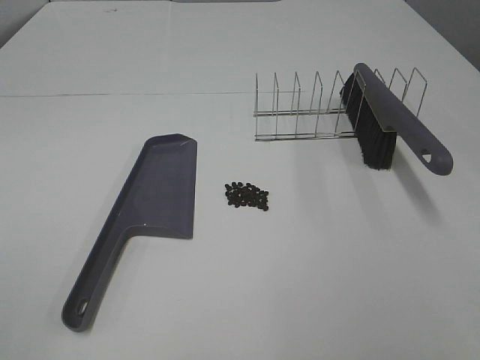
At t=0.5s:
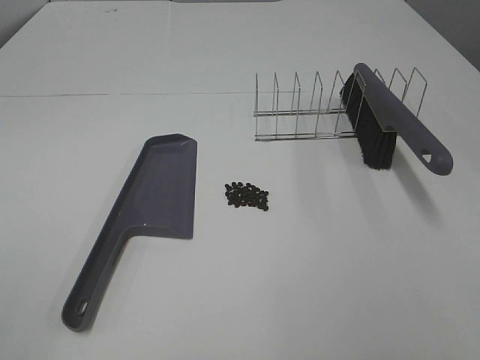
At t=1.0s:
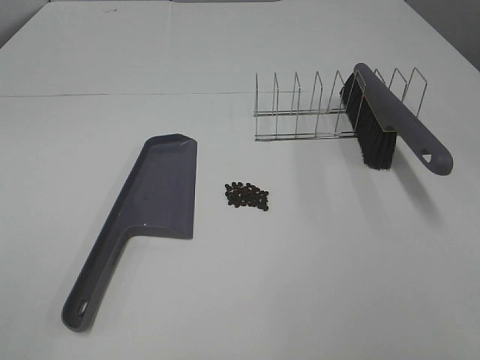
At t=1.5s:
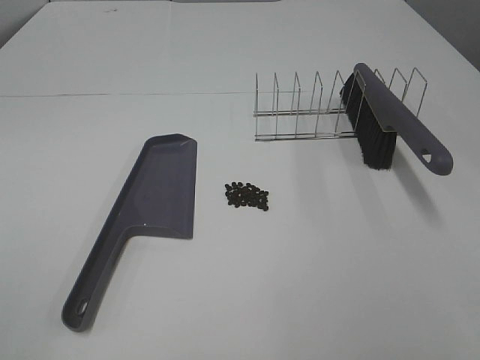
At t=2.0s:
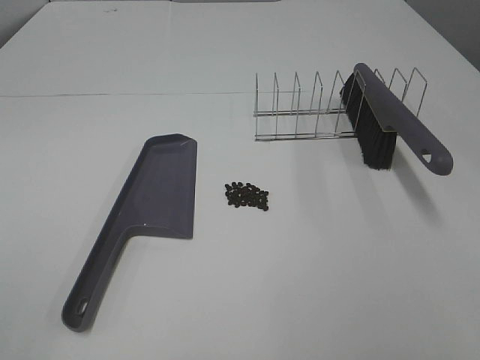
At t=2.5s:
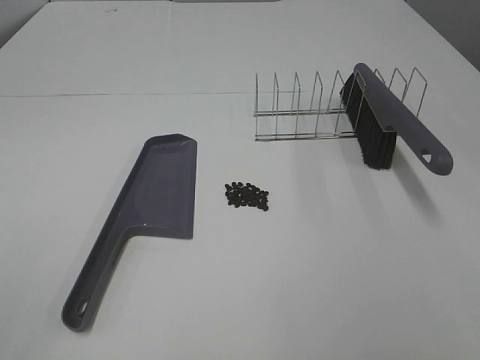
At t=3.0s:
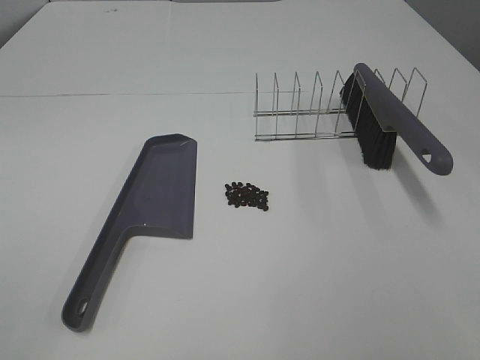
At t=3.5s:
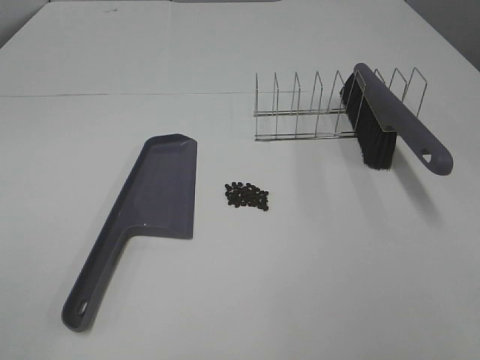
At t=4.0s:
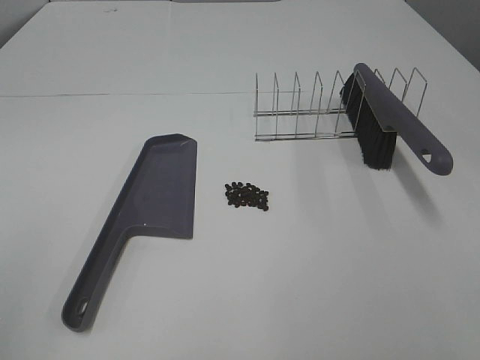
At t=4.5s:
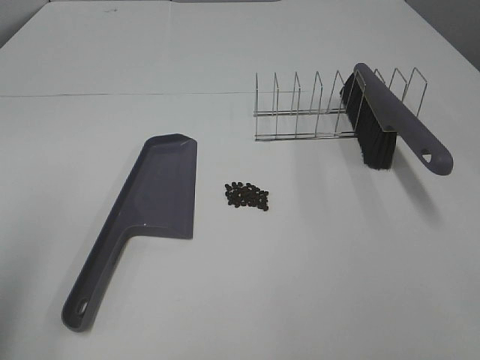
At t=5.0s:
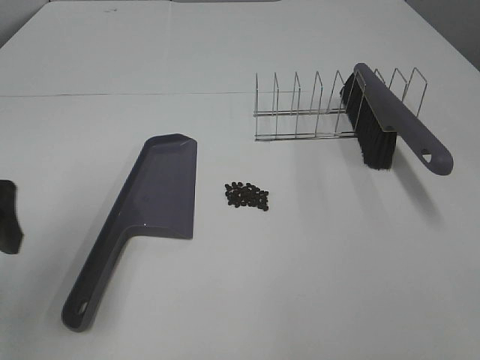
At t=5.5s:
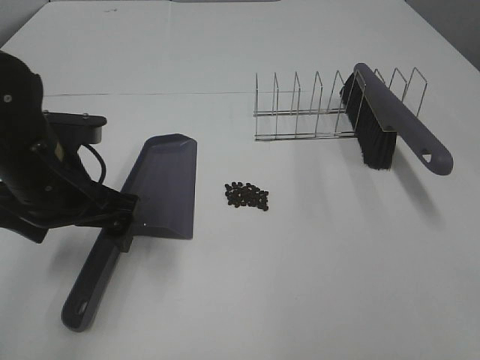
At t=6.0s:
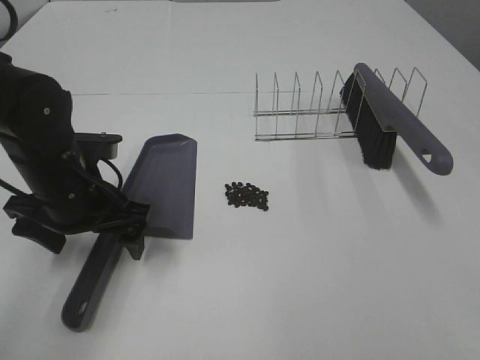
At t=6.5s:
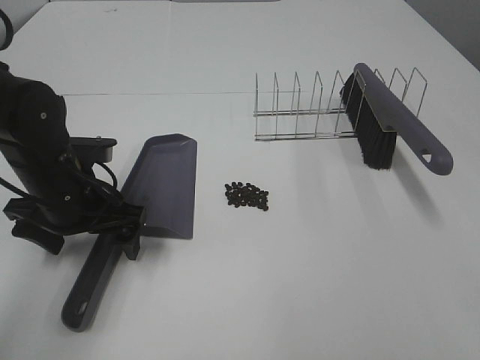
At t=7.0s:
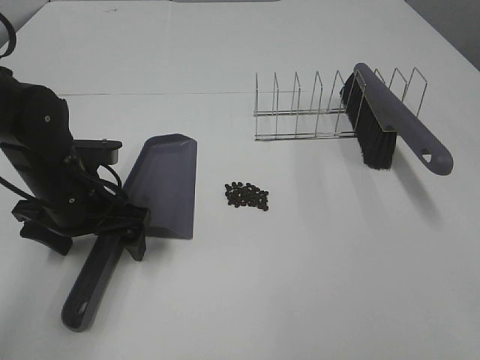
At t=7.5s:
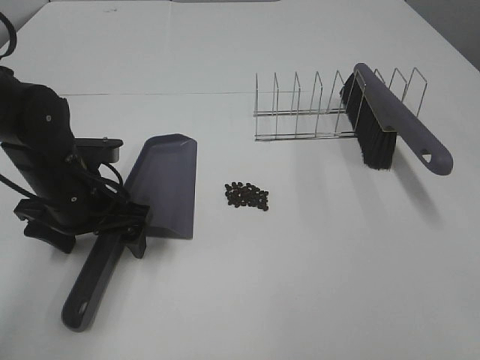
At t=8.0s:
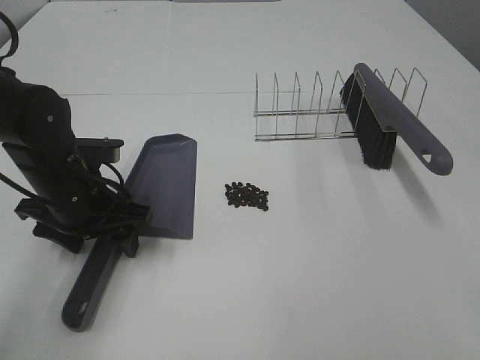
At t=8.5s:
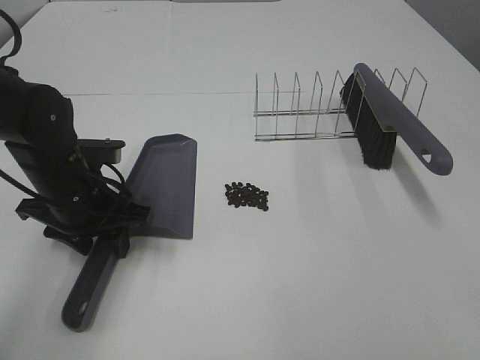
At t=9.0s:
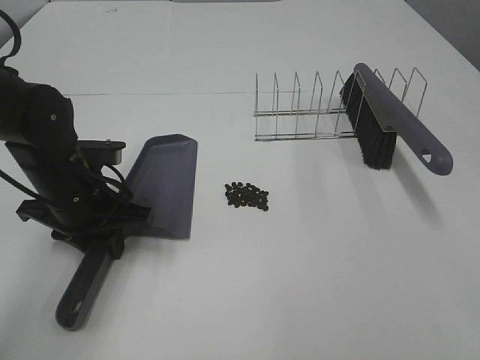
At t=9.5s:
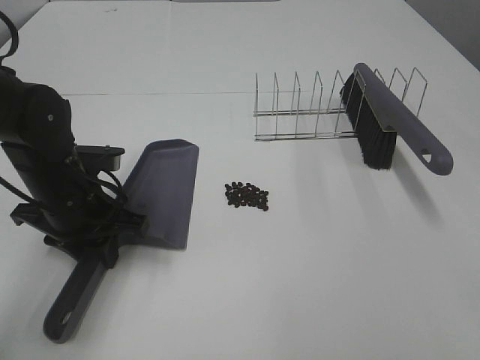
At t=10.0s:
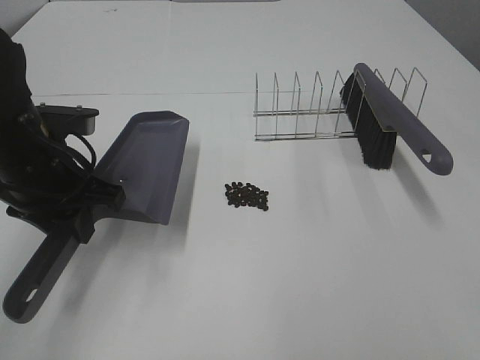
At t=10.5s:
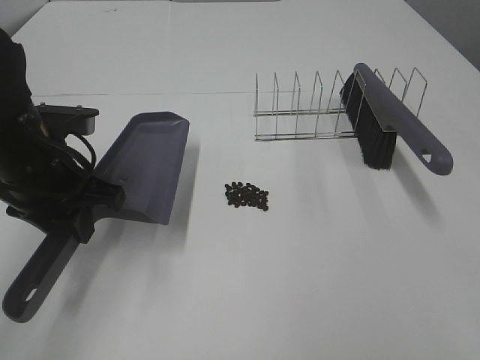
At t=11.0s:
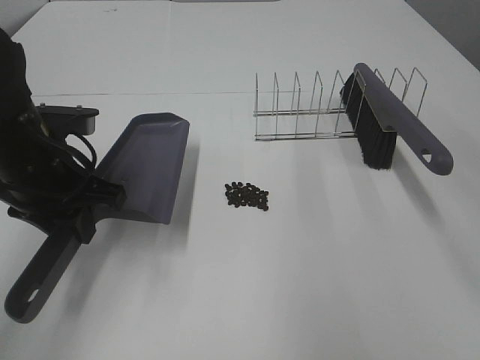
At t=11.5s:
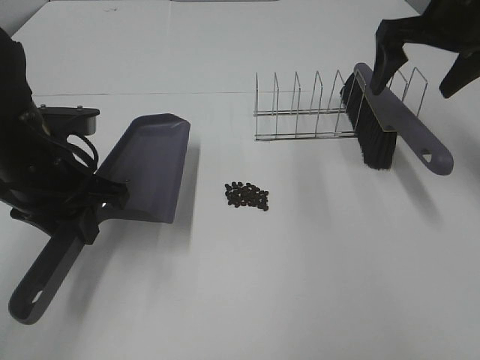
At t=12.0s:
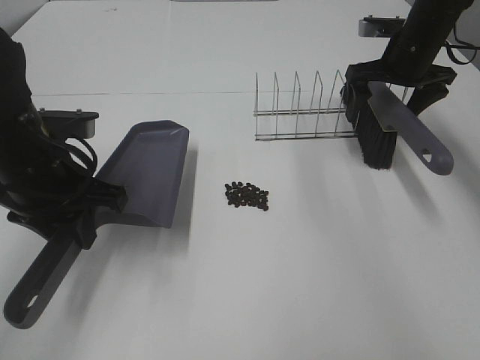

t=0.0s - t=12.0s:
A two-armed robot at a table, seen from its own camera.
Task of the whole recording: Sweep Coffee Bean.
Step, t=0.0s - t=8.5s: Left hand: grab the dustpan.
t=0.0s - t=2.0s: Neither gripper changes place.
t=4.0s - t=6.0s: The left gripper travels forward, downward and to the right by some 35 cm.
t=6.0s - t=8.0s: The left gripper closes its fingers.
t=8.0s - t=10.0s: The left gripper heads upward, covering approximately 5 cm, and closes up.
t=10.0s - t=12.0s: The right gripper travels forward by roughly 50 cm.

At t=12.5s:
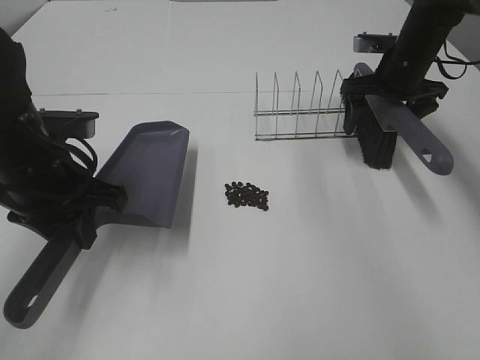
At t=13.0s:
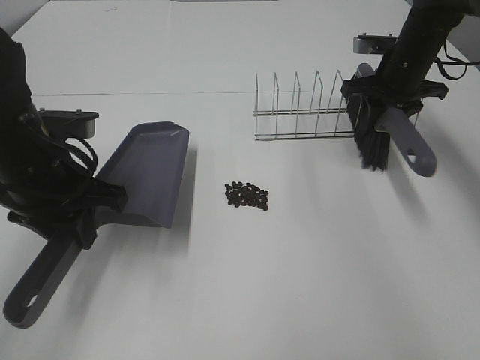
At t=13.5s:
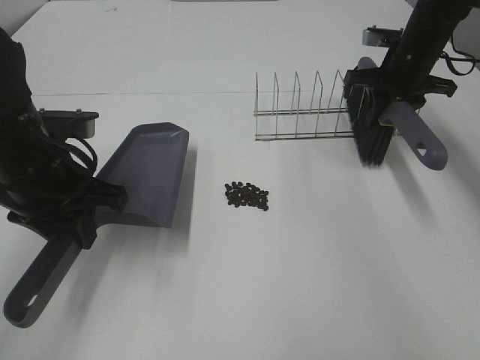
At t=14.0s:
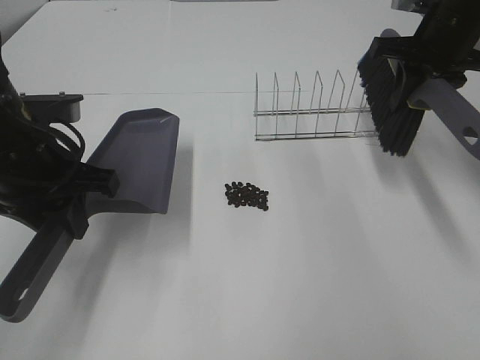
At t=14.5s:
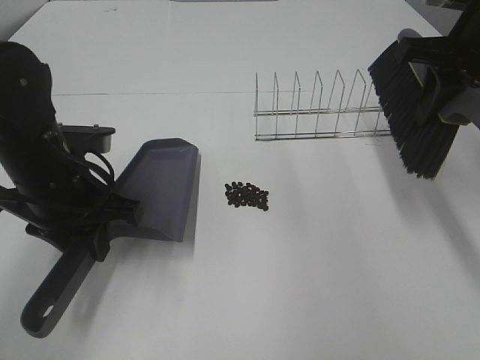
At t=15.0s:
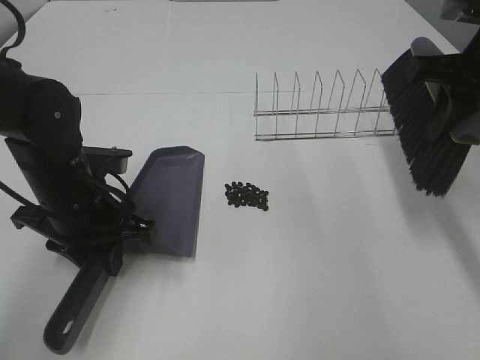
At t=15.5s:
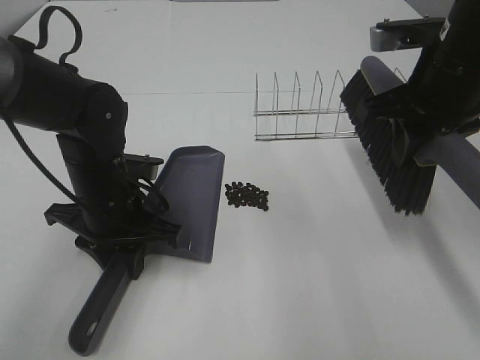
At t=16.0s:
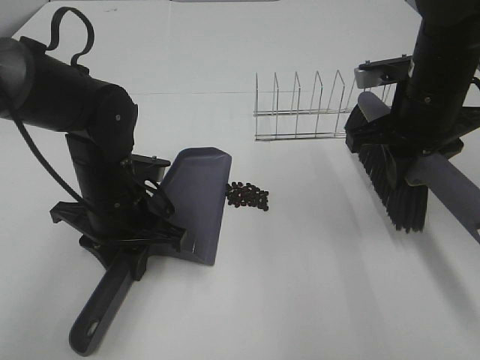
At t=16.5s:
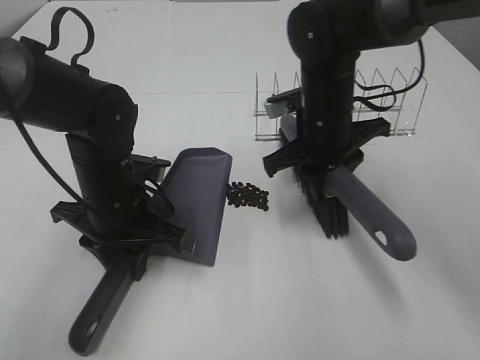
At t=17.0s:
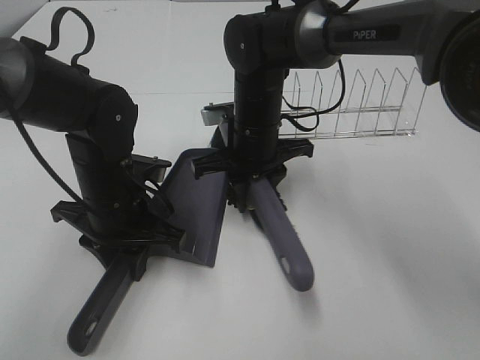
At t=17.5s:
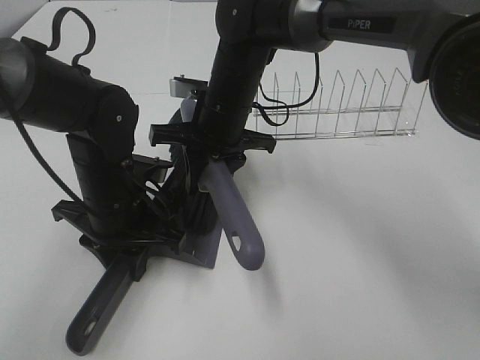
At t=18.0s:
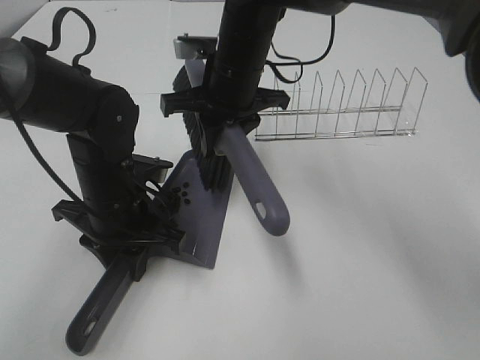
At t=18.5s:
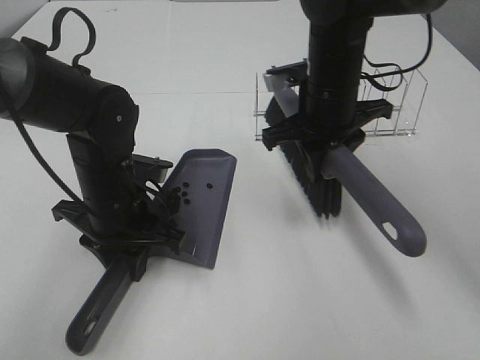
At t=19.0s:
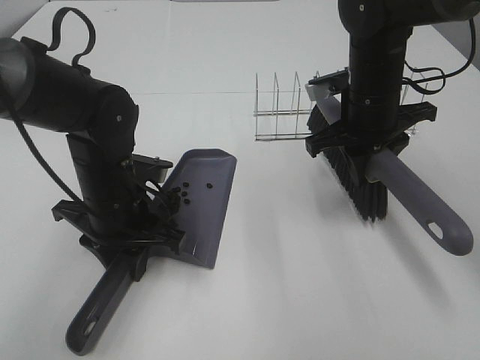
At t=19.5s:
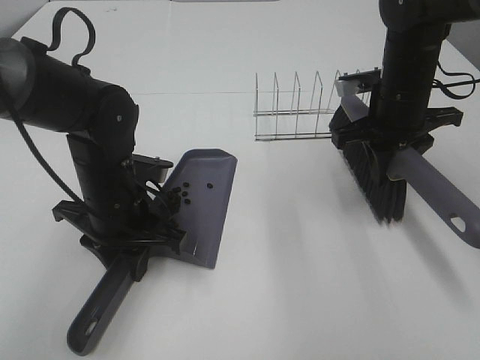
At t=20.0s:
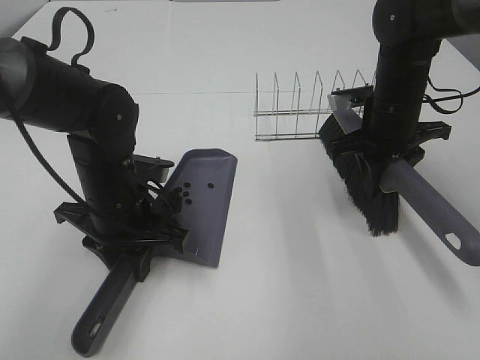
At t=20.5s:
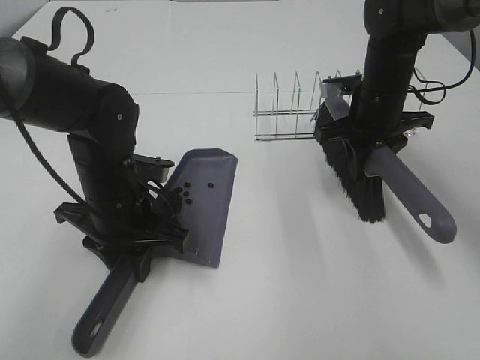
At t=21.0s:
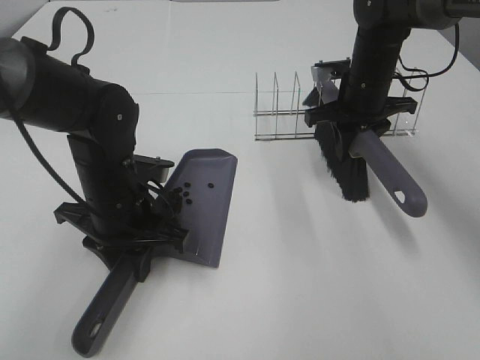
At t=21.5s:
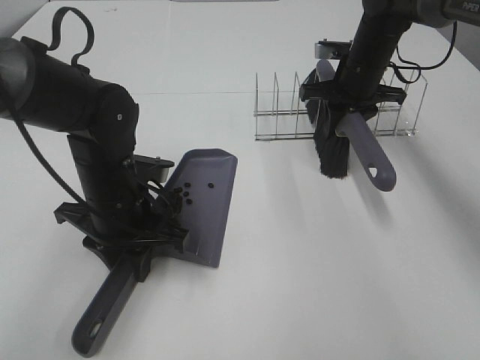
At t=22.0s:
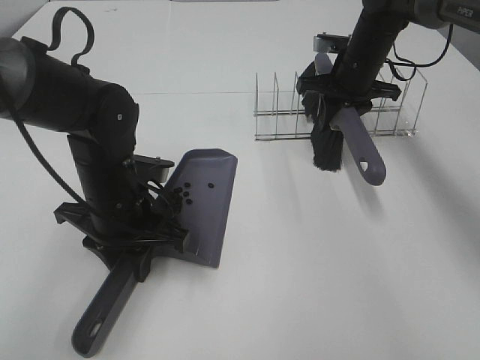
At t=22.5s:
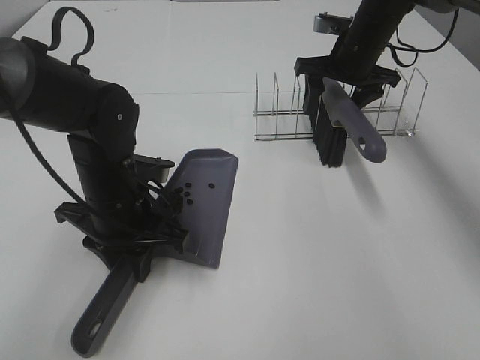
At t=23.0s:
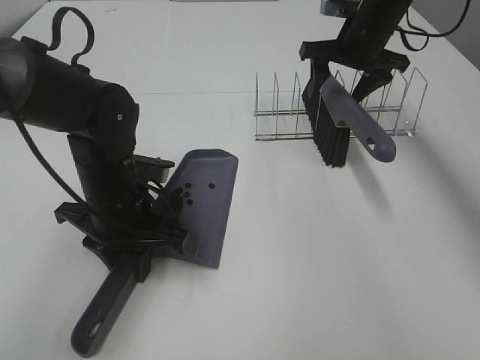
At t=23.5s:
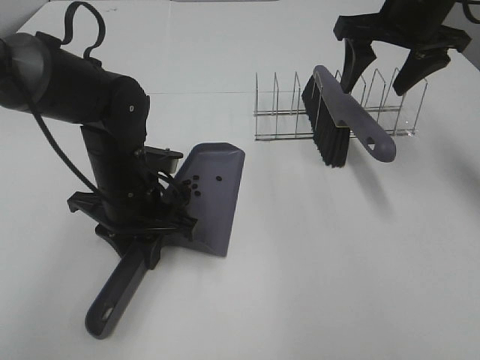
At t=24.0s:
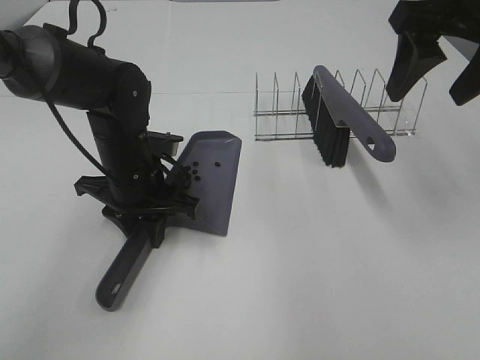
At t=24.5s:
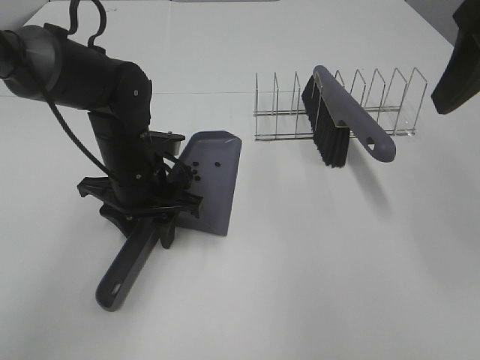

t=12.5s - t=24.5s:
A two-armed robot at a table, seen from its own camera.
Task of the whole recording: Sweep Coffee Bean.
Step, t=12.5s - t=16.0s: Left hand: move the dustpan to the left side of the coffee beans.
Step, t=13.5s - t=17.5s: Right hand:sweep the coffee beans into the dustpan.
Step, t=18.0s - t=22.5s: Right hand:place the broom on the rack.
t=12.5s - t=14.5s: The right gripper heads backward and upward, covering roughly 20 cm, and closes.
t=14.5s - t=16.5s: The left gripper shifts approximately 5 cm downward. Meanwhile the right gripper goes approximately 20 cm to the left and downward.
t=16.5s - t=18.5s: The right gripper reaches some 10 cm to the left, then returns.
t=18.5s - t=20.5s: The right gripper goes about 10 cm to the right.
t=20.5s - t=22.5s: The right gripper heads forward, covering some 10 cm, and opens.
t=22.5s - t=24.5s: The right gripper shifts approximately 30 cm backward and upward.

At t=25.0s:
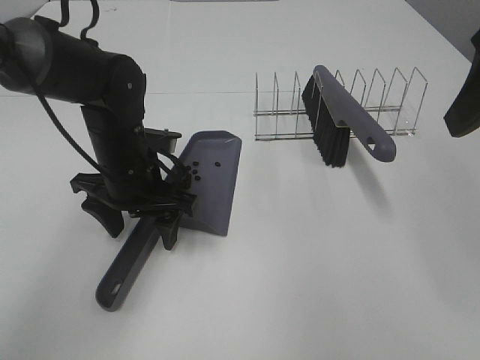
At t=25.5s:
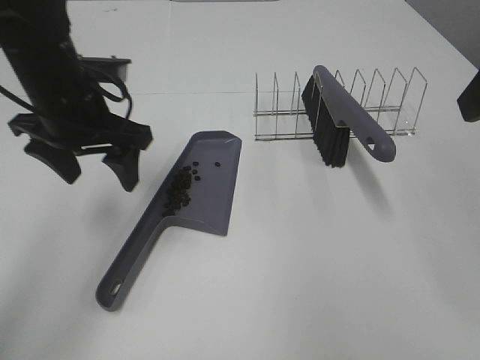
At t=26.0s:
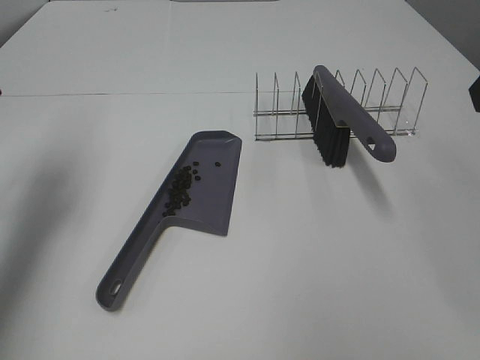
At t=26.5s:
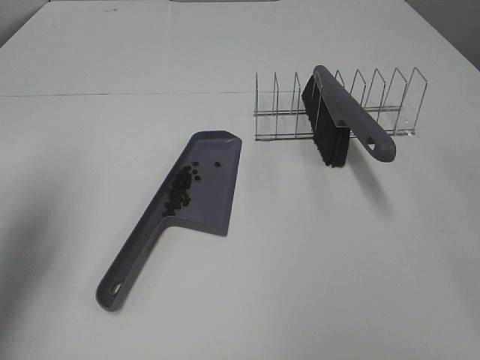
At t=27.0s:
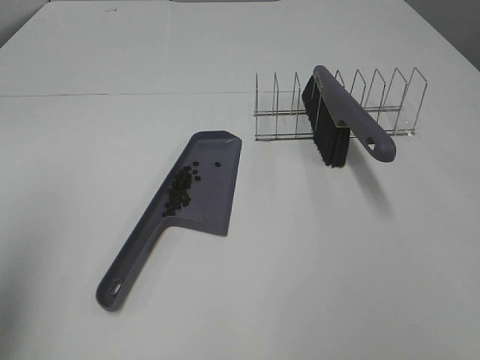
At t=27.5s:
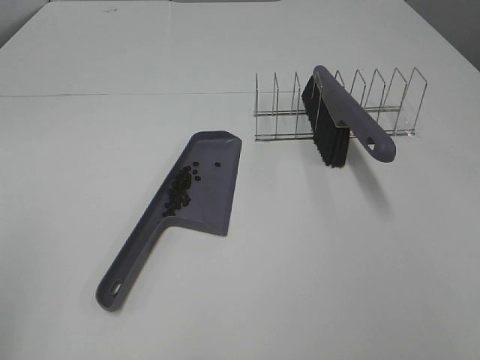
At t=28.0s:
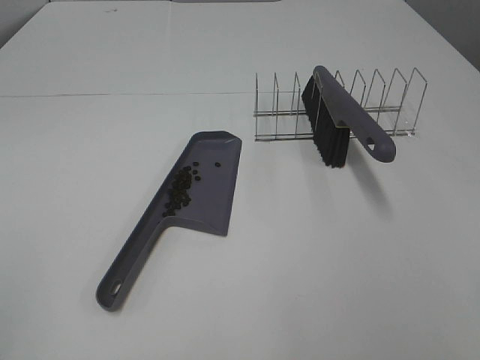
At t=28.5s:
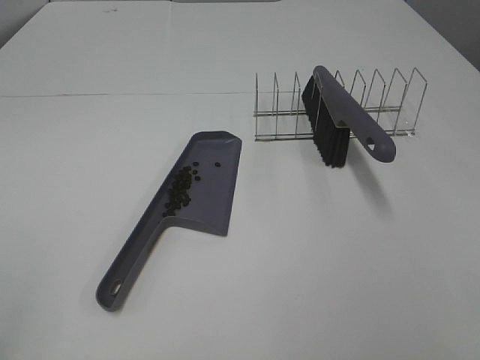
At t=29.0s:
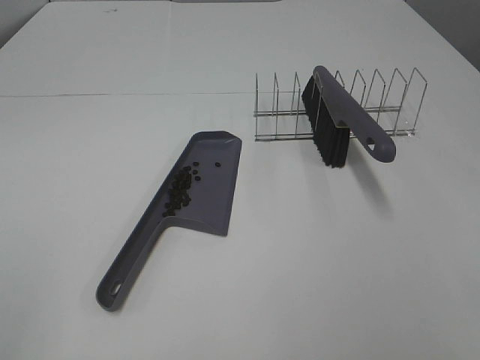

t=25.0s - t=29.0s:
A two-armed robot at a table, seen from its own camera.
Task of the whole recording: Sweep Coffee Bean.
t=25.0s - t=27.0s: The left gripper heads to the left, upward and backward, covering approximately 35 cm. Meanwhile the right gripper heads backward, covering approximately 15 cm.
t=27.0s - t=29.0s: The left gripper is displaced backward by about 15 cm.
